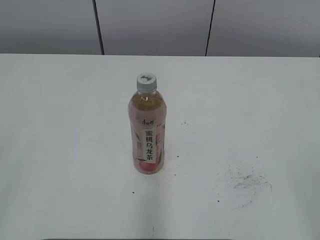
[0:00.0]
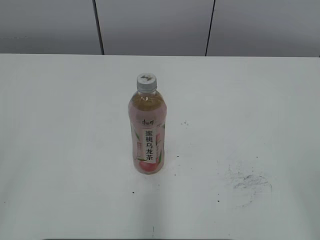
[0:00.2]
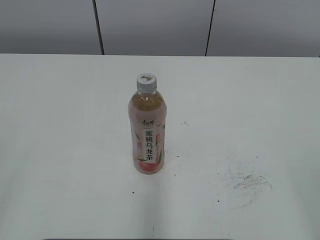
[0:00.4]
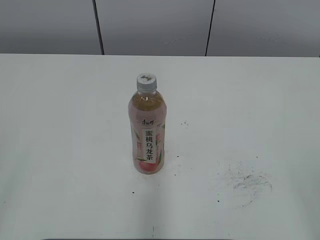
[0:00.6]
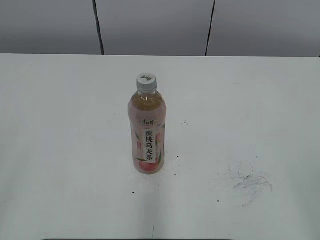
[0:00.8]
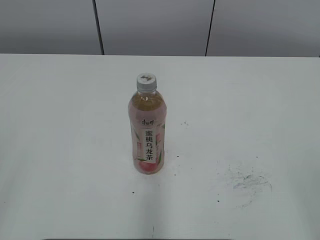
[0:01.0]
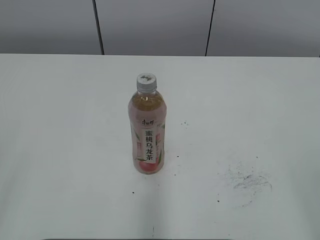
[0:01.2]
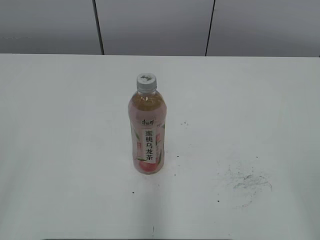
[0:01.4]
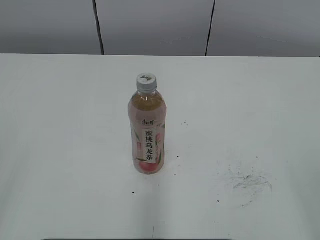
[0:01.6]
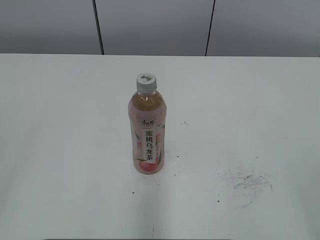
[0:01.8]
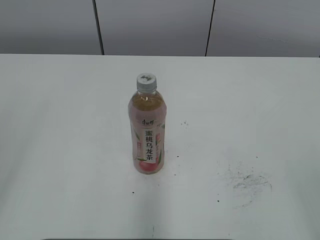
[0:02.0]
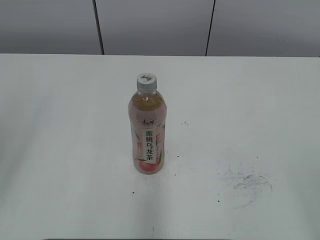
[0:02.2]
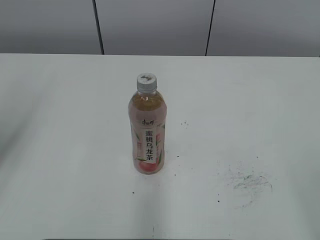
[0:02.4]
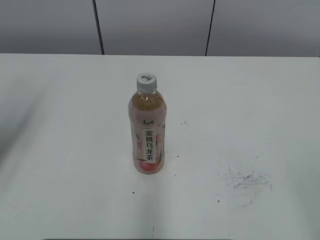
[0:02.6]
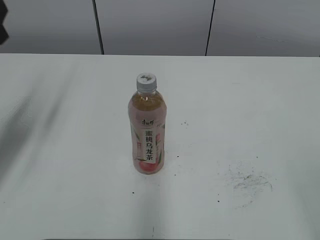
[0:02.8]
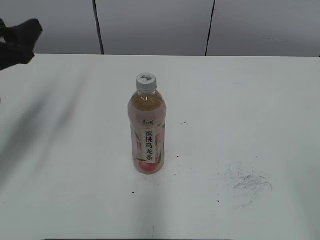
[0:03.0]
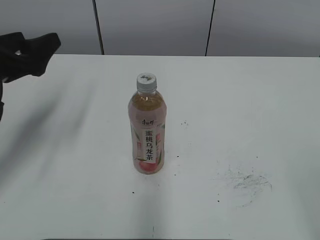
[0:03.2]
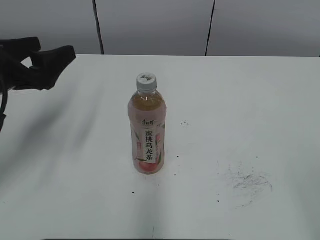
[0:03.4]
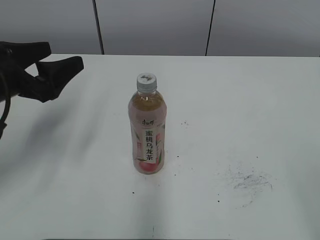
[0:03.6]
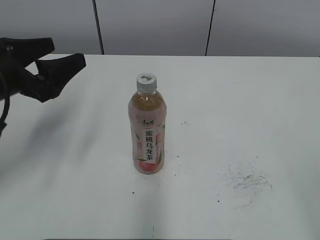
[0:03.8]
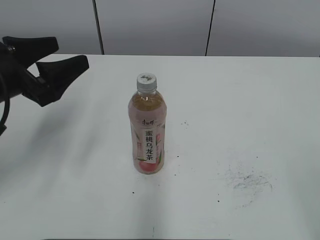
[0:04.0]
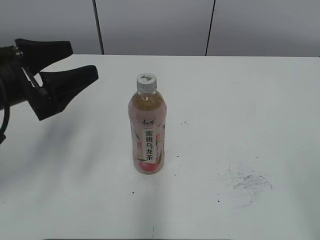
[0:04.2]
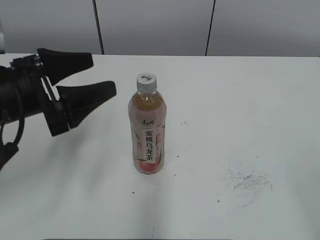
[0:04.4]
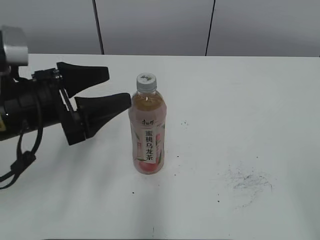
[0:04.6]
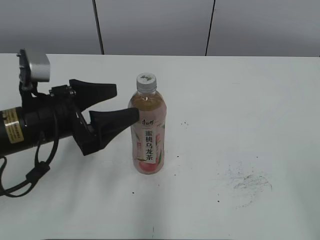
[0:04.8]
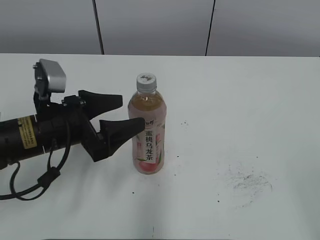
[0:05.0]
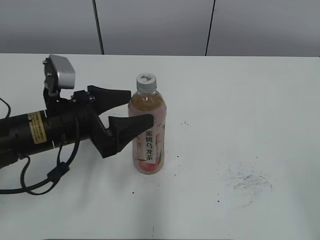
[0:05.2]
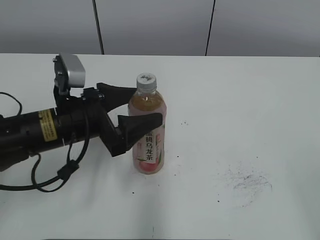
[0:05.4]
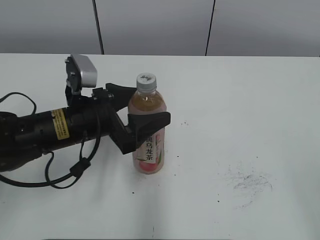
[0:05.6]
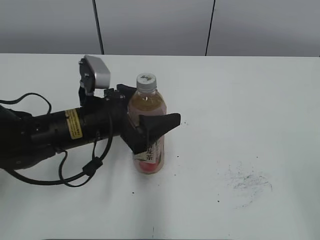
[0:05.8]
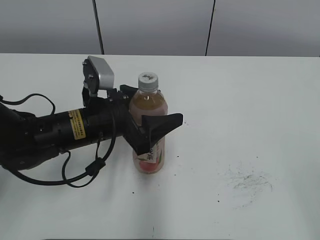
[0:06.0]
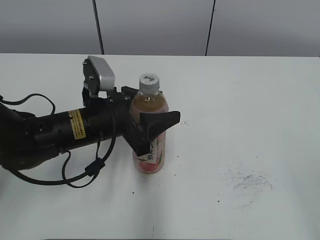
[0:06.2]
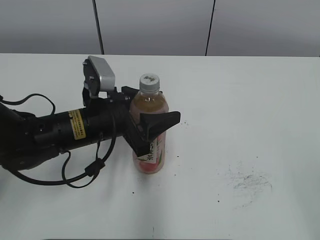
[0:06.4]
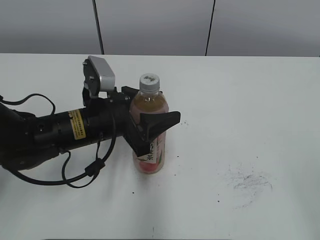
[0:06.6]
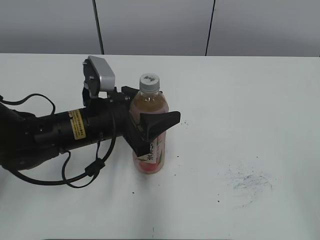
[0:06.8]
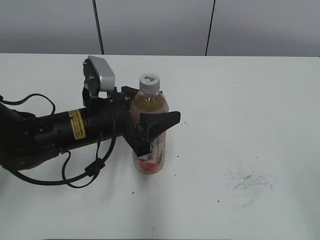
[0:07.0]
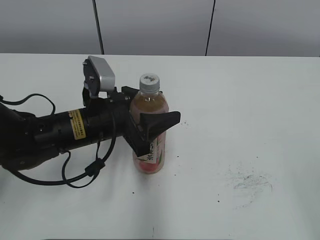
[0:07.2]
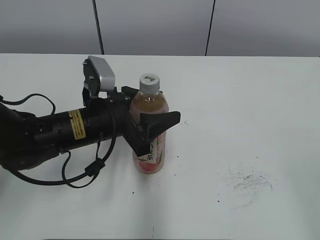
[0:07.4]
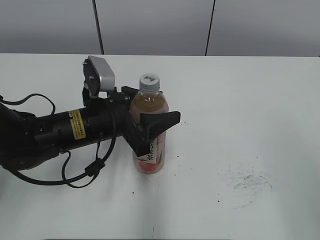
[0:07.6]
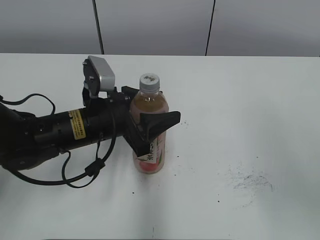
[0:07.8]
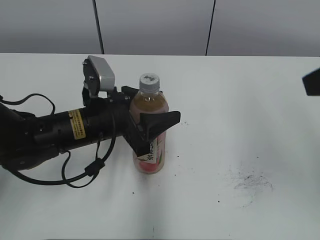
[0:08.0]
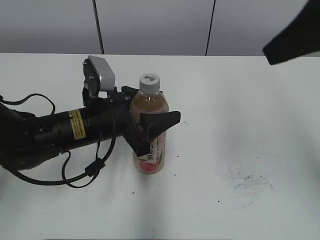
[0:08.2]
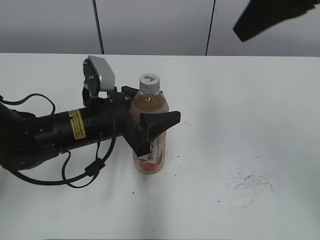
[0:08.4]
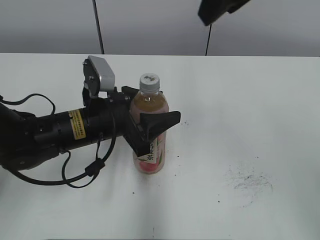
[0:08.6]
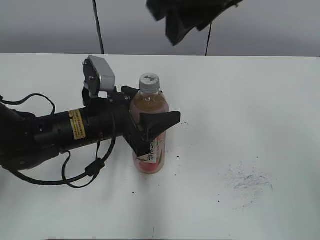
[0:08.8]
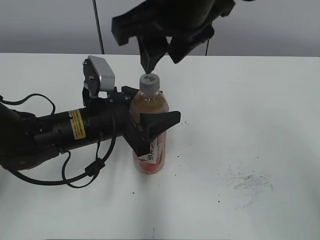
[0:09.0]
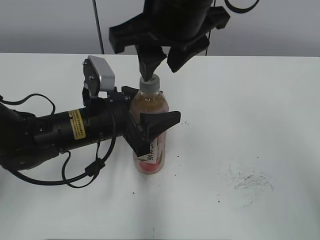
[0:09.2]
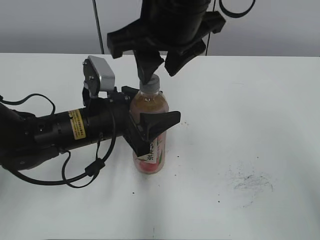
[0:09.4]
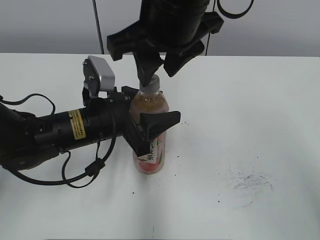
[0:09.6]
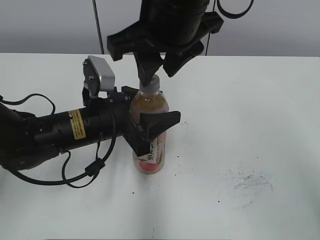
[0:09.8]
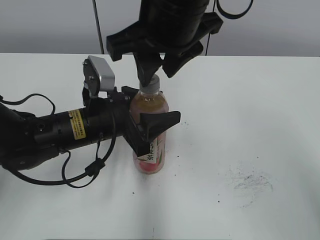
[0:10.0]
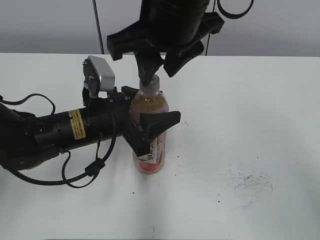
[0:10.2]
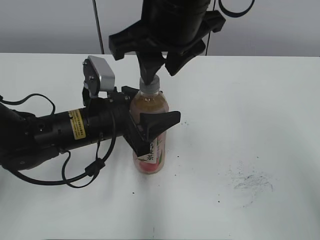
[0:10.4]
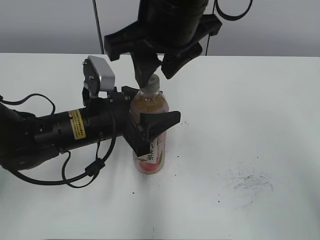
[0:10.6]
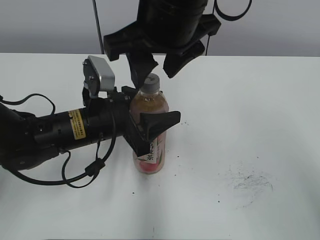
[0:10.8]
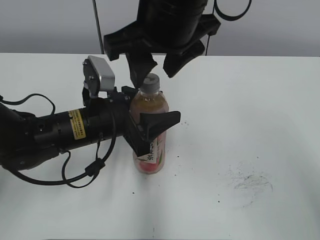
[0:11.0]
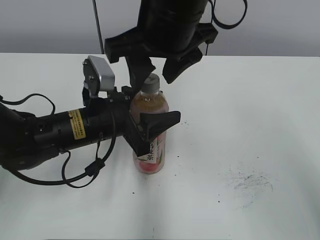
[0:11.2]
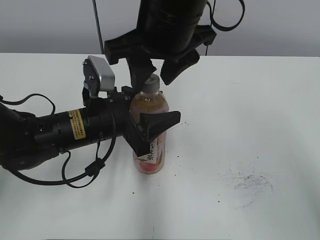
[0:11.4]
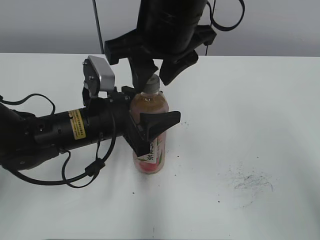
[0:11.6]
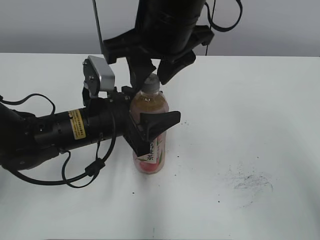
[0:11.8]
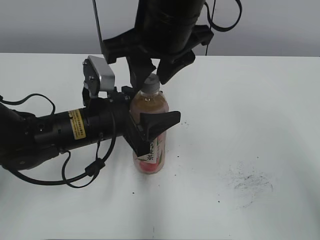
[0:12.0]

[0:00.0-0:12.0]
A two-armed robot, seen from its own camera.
Step, 0:00.0 to 0:08.8: Grab the Peach Oolong Tea with the left hand.
0:01.6 to 0:03.0: The left gripper is displaced forward by roughly 30 cm.
0:03.0 to 0:04.4: The left gripper travels to the right by about 5 cm, and opens.
0:04.4 to 0:06.0: The left gripper shifts about 10 cm to the right and downward.
0:06.0 to 0:07.6: The left gripper closes its fingers. The right gripper changes place by about 5 cm.
0:07.6 to 0:09.0: The right gripper is displaced to the left and forward by about 35 cm, and closes.
0:09.0 to 0:12.0: The grippers stay close to where they were, moving slightly.

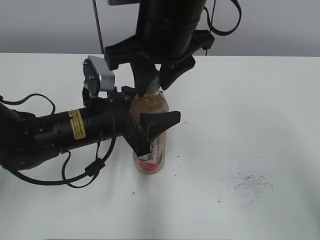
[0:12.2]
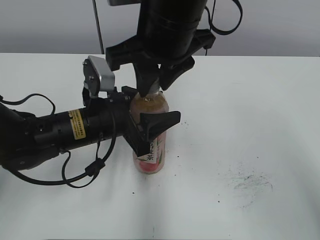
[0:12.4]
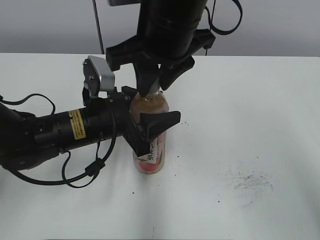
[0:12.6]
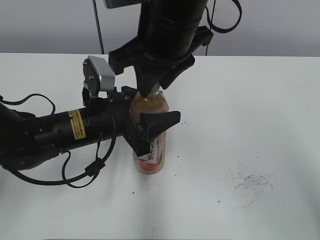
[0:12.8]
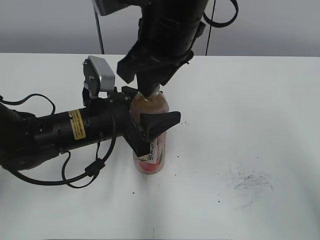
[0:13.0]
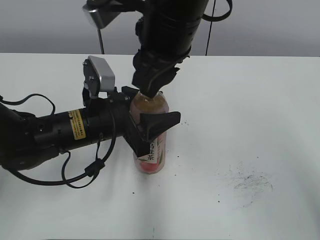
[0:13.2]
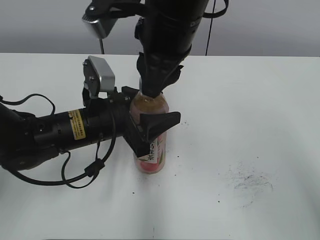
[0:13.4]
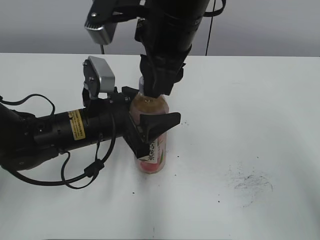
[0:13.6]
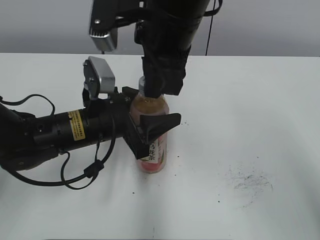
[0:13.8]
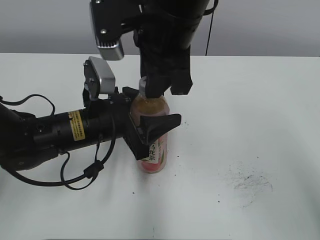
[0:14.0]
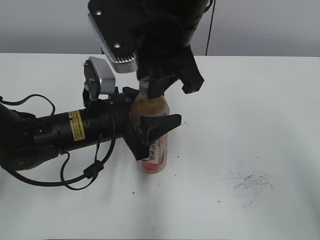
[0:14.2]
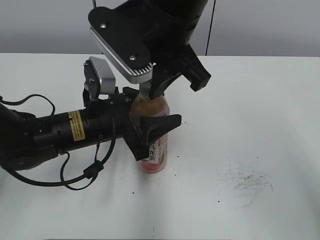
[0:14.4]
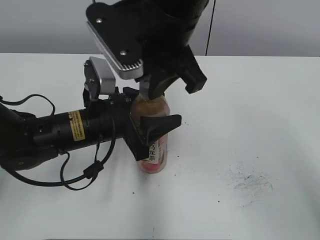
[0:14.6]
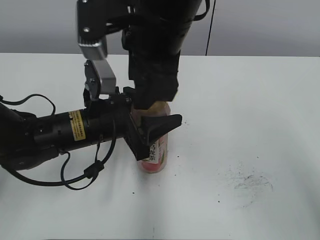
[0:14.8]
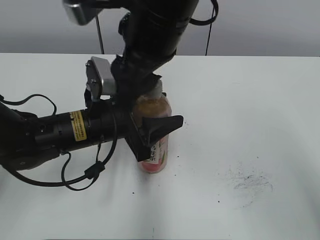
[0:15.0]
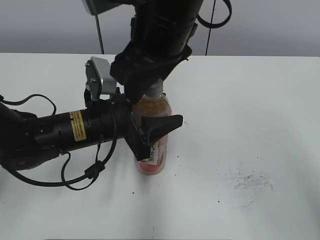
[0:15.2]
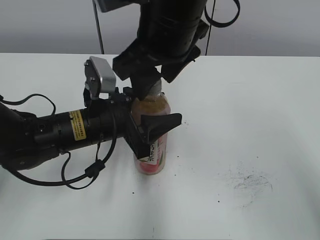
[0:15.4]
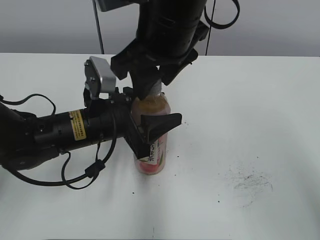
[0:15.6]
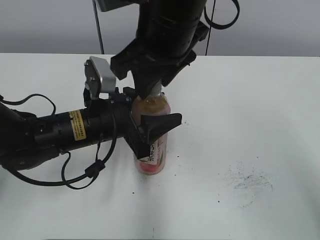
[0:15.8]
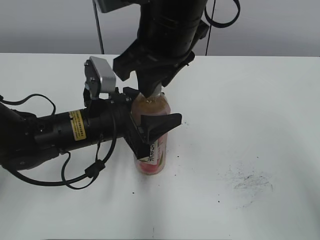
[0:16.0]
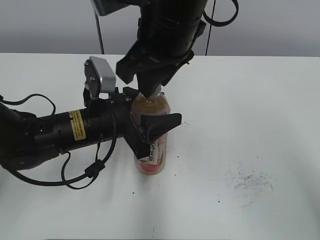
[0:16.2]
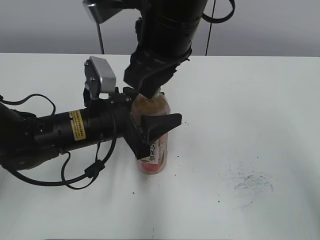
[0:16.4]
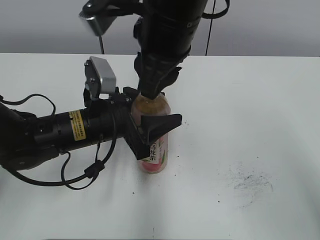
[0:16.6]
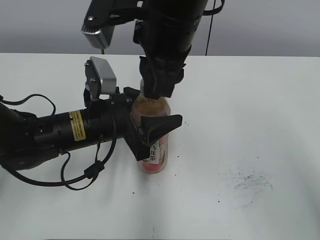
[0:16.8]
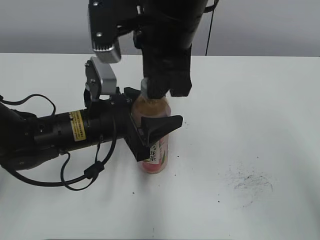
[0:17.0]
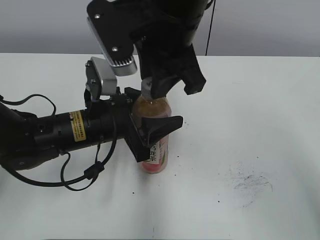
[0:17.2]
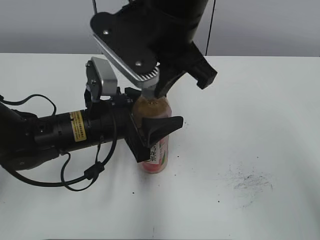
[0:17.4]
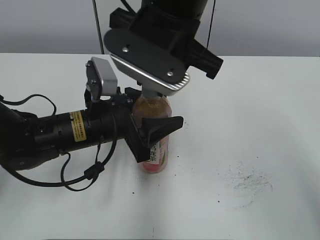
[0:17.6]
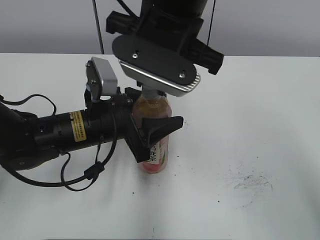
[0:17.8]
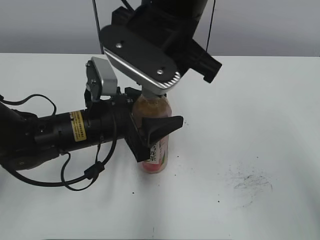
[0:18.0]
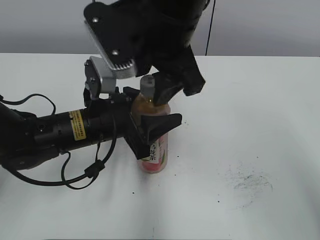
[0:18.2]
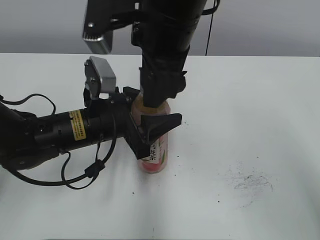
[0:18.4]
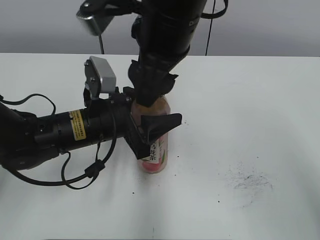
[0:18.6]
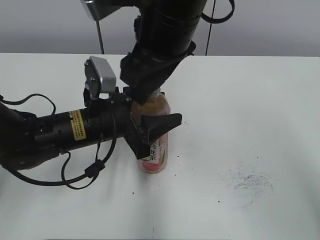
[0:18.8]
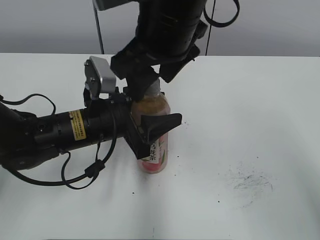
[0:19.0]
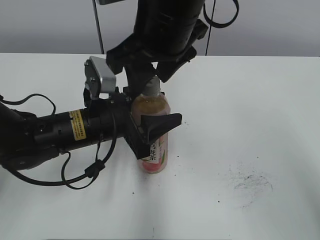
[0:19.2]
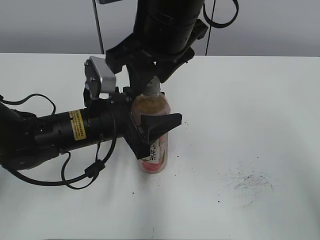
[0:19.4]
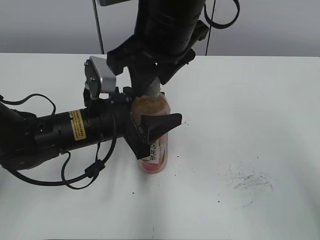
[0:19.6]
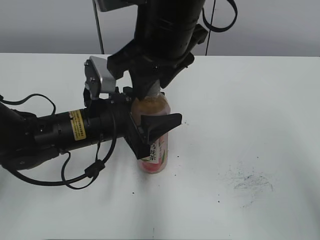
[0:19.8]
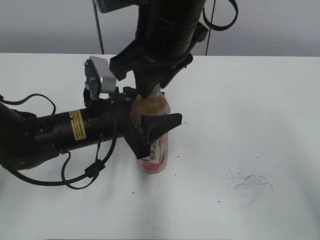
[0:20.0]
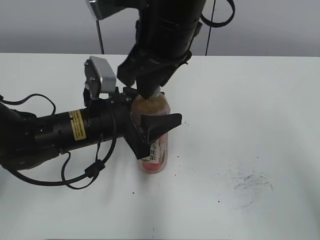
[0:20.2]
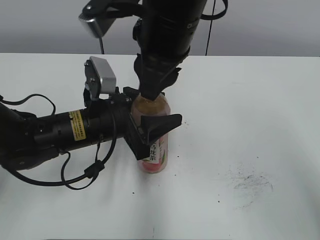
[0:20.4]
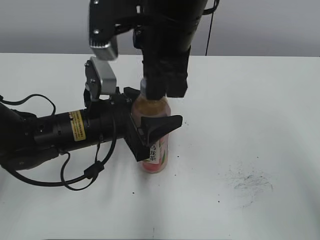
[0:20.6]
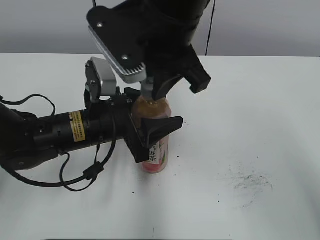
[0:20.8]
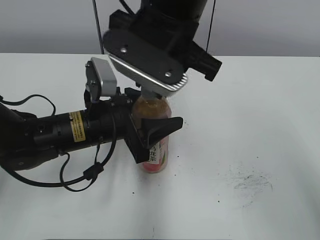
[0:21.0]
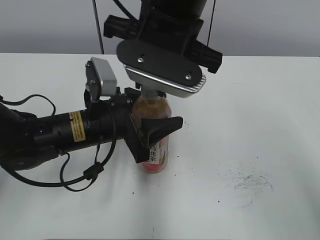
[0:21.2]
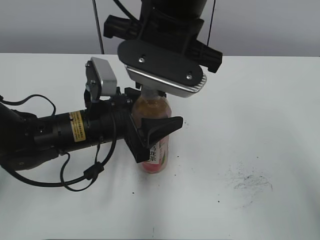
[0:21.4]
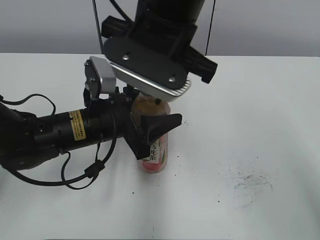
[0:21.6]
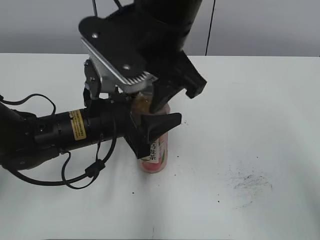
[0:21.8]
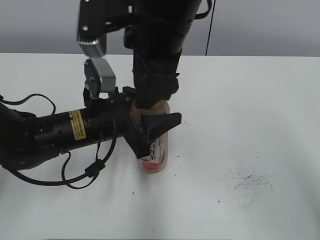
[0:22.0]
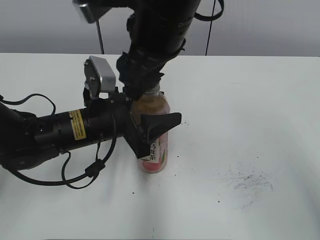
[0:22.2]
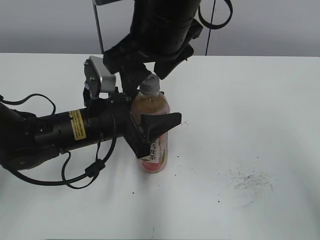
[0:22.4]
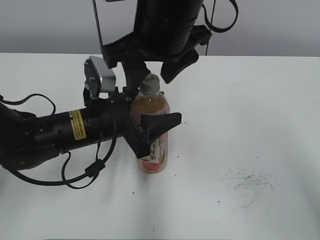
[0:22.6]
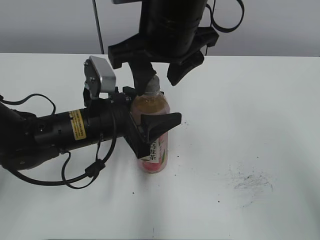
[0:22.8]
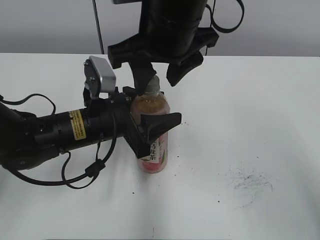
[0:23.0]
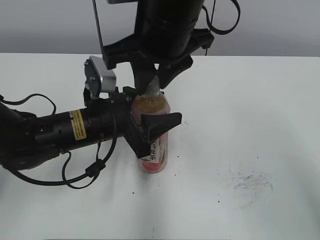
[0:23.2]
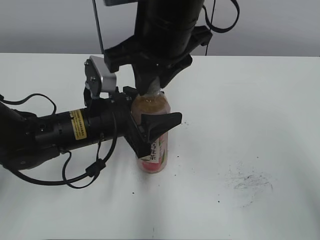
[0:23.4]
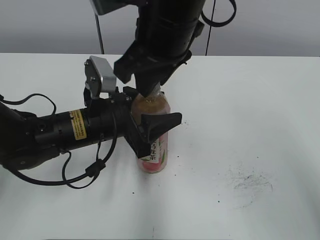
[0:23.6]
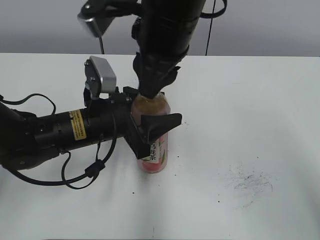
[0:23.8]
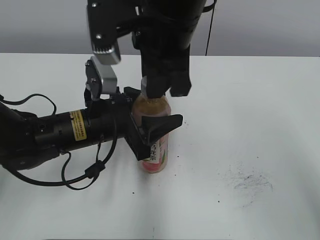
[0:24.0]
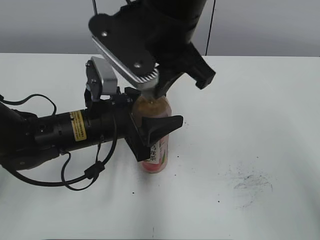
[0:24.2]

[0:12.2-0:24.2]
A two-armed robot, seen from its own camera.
0:13.8 to 0:15.2: The right gripper opens up.
0:15.2 to 0:16.6: The right gripper closes.
0:16.6 to 0:18.2: The right gripper opens its fingers.
0:18.2 to 0:19.8: The right gripper closes its fingers.
0:21.2 to 0:22.6: The right gripper opens up.
0:22.6 to 0:24.2: The right gripper closes.
